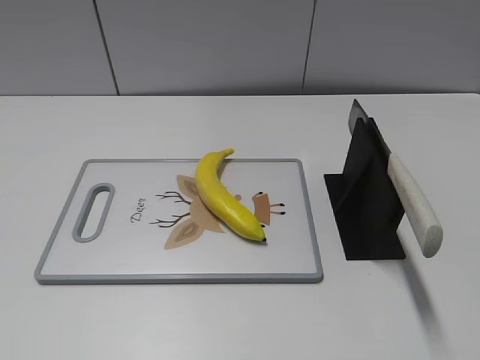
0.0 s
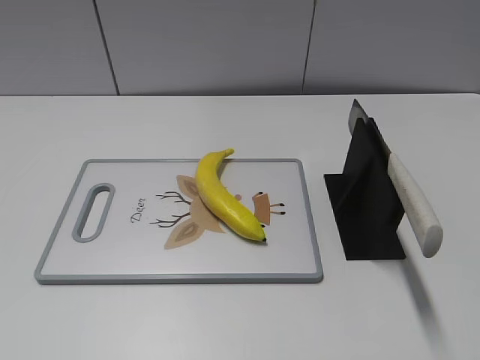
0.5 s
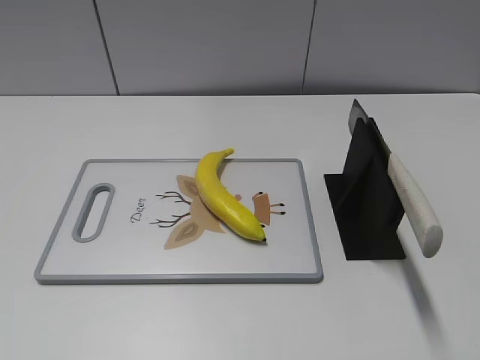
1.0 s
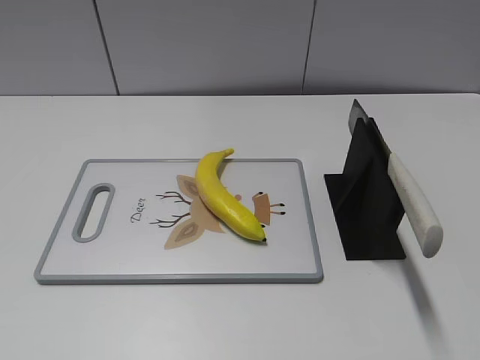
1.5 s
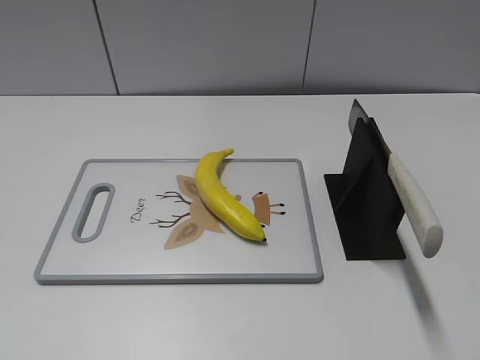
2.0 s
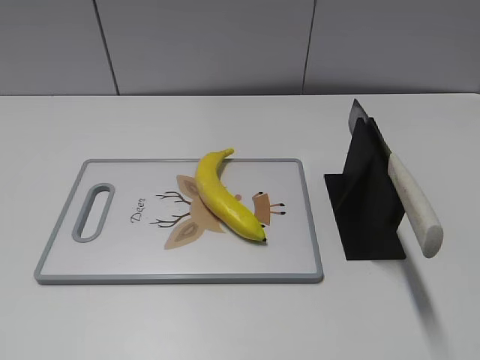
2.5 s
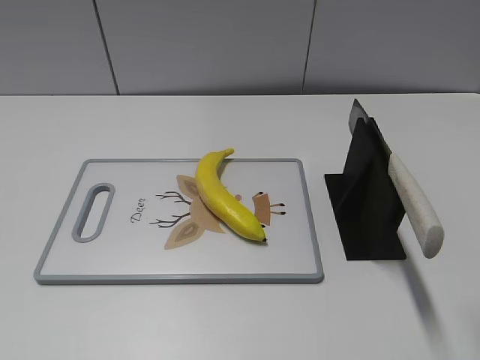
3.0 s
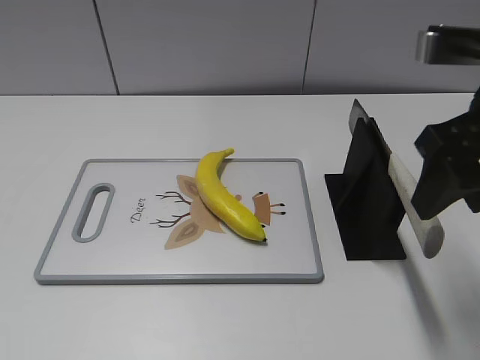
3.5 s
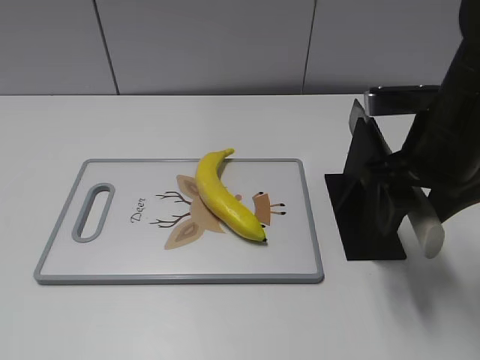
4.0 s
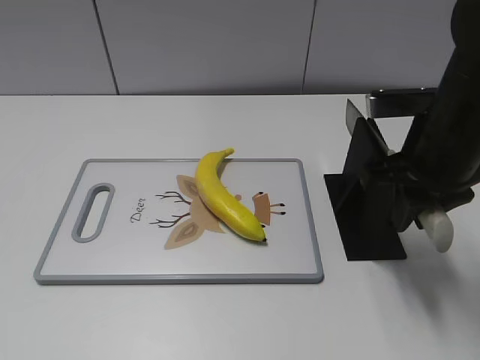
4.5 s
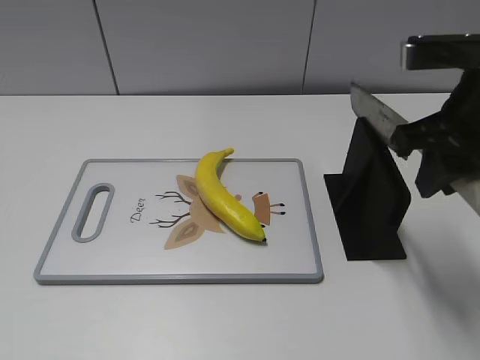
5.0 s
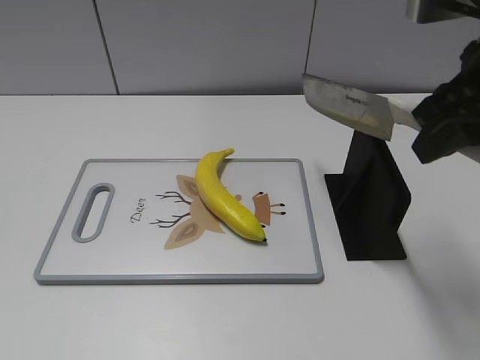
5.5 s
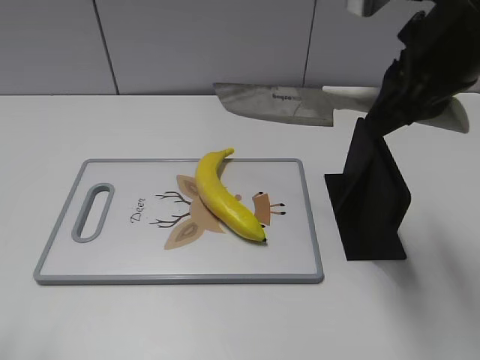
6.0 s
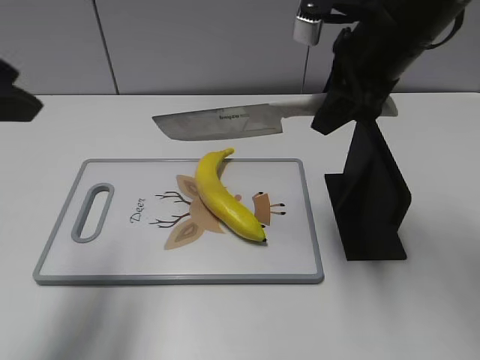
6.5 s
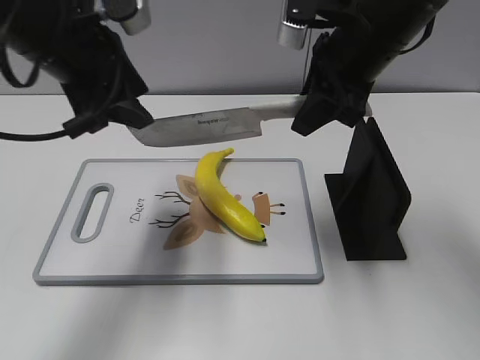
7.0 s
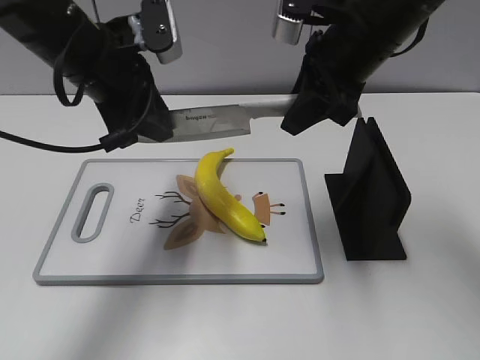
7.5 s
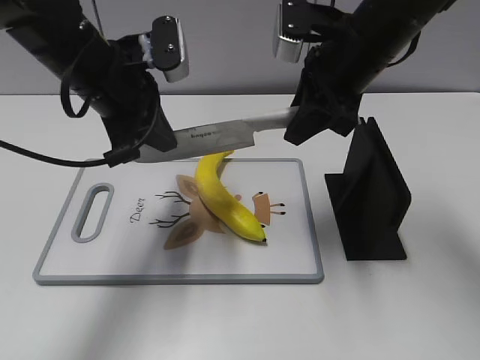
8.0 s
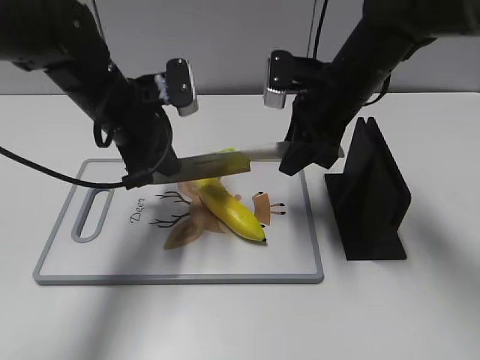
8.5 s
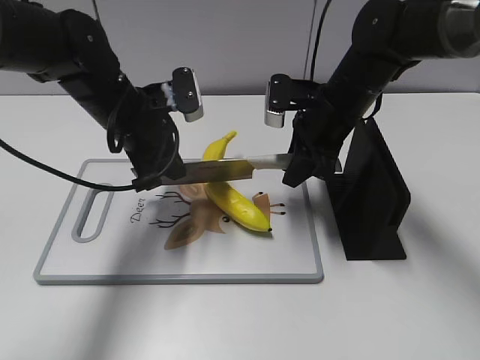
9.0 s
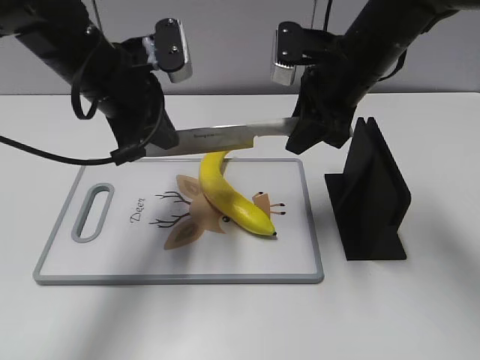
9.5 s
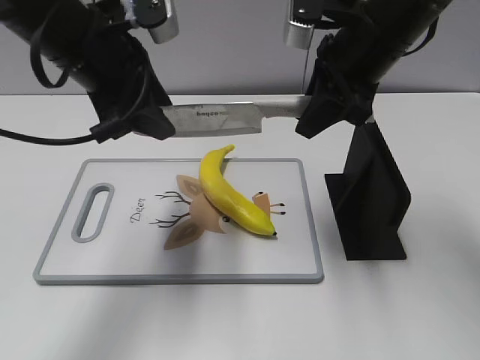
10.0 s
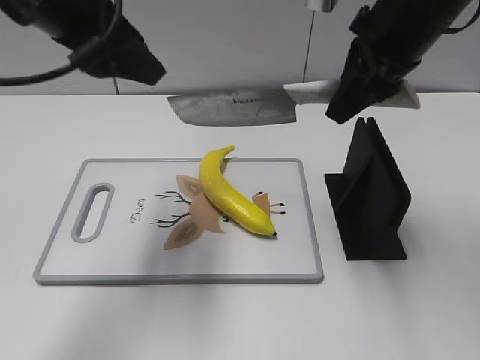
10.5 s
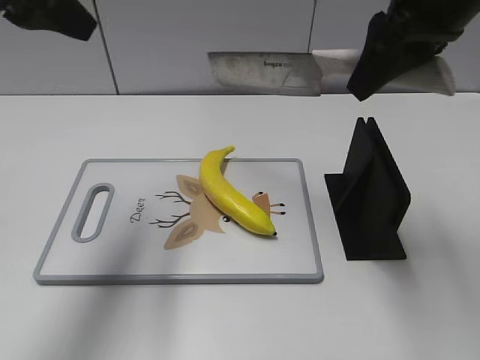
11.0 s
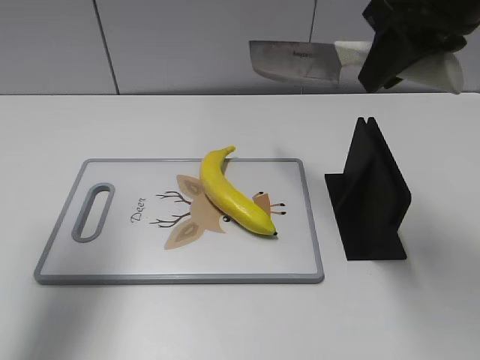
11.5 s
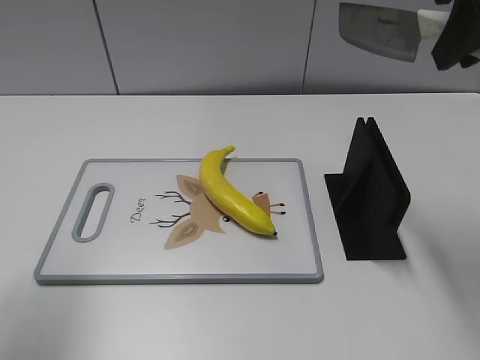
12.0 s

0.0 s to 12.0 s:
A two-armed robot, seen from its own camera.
Task of the whole recording: cut plastic banana.
Step, 0.0 to 5.5 s: Grab the knife handle with your right hand.
Step, 6.0 to 9.0 s: Lift the knife with your right hand.
Step, 10.0 to 10.5 s: Cut the banana with your right hand.
2.0 to 4.0 s: The right gripper heads forward, covering roughly 25 cm.
4.0 to 6.0 s: The right gripper goes some 10 cm upward, and closes its fingers. The left gripper moves forward, some 10 cm.
6.0 to 8.0 s: The right gripper moves forward and downward, some 10 cm. Meanwhile the left gripper moves forward and to the right, about 30 cm, and closes its fingers.
8.0 to 10.0 s: The left gripper opens up. Meanwhile the right gripper reaches roughly 10 cm downward, then returns.
10.0 to 12.0 s: The right gripper shifts roughly 15 cm upward, backward and to the right, while the left gripper goes roughly 20 cm to the left, backward and upward.

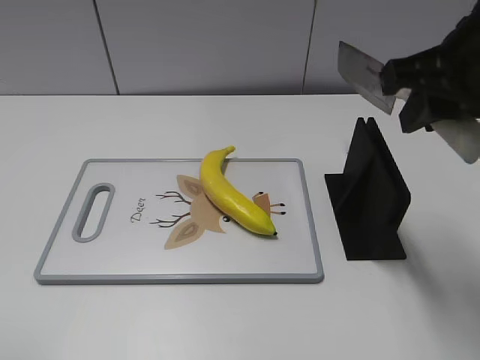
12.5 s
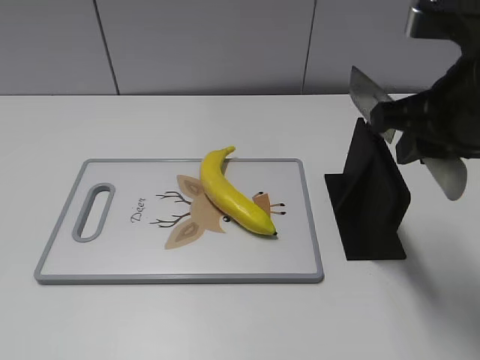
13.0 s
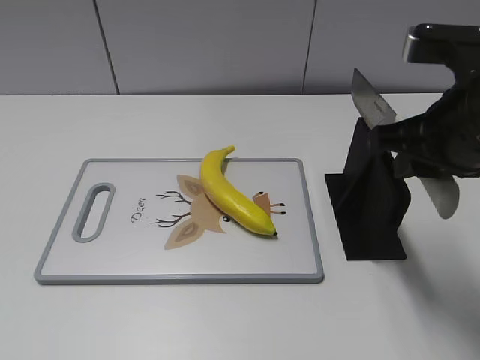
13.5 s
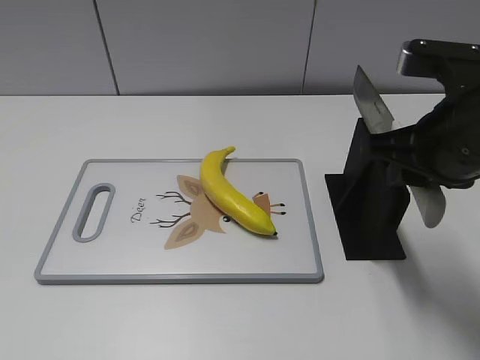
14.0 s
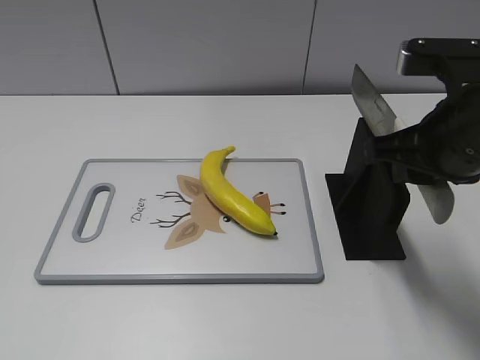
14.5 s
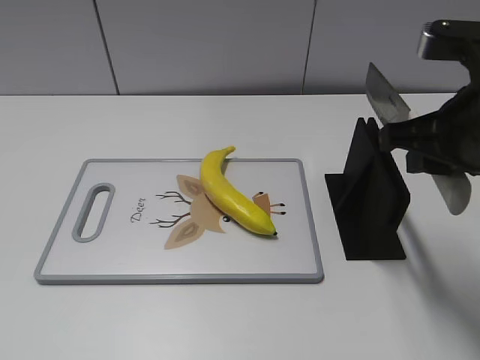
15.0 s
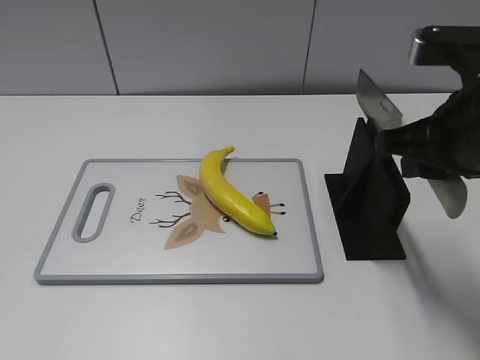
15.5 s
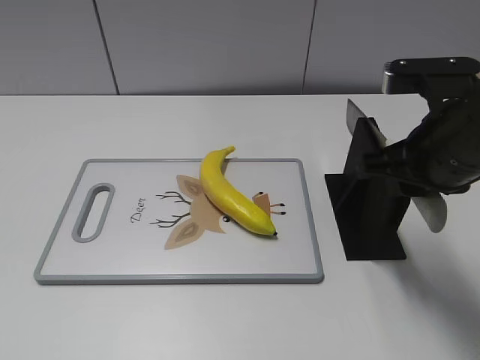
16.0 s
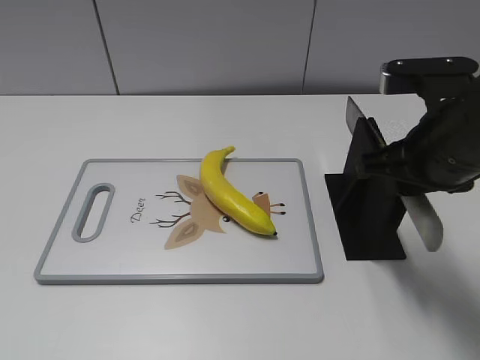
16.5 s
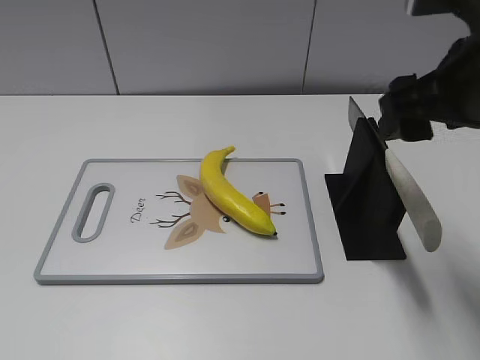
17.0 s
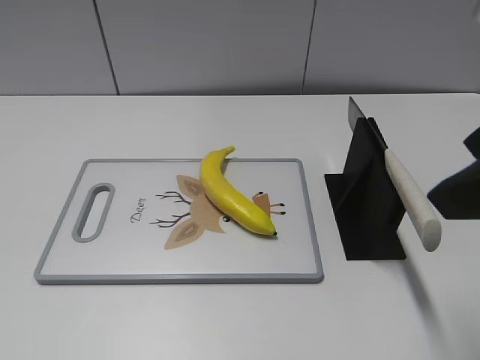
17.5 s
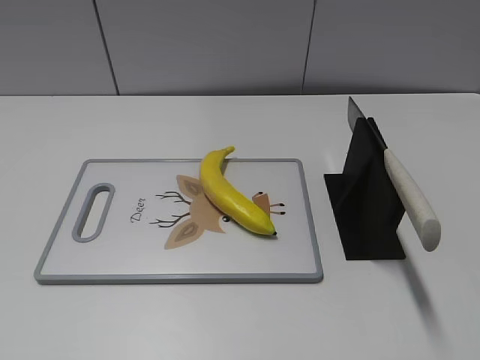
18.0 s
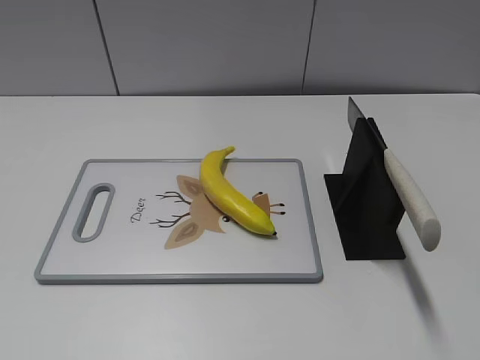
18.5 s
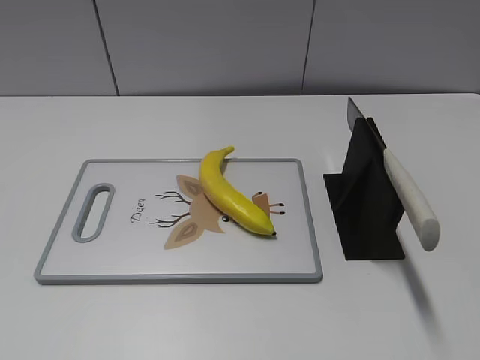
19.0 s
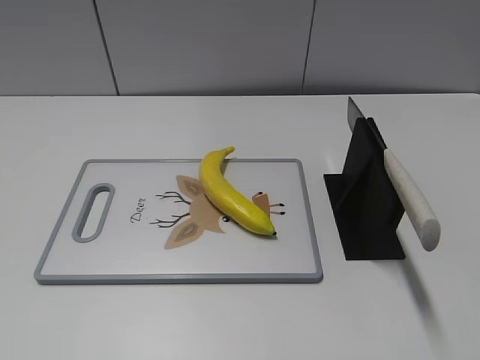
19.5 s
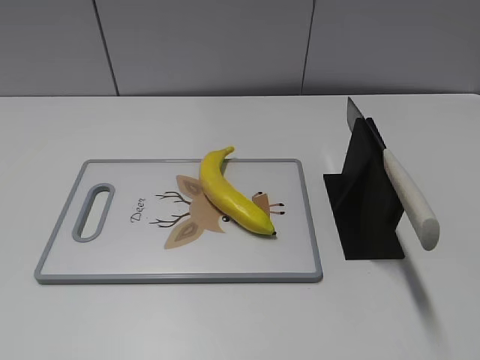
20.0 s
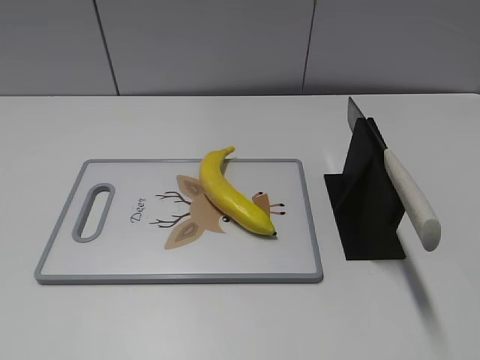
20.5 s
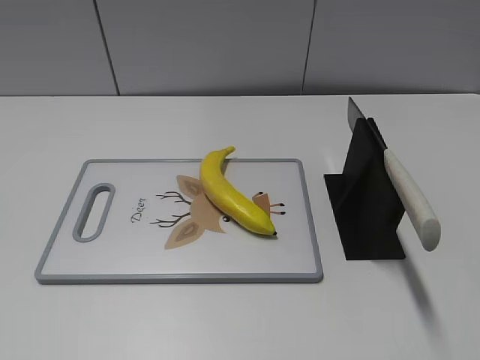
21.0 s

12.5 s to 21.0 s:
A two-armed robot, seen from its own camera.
Task of the whole recording: cut plastic banana.
Step, 12.5 to 20.5 s: Place the knife on the storage rack with your right hand.
12.5 to 14.5 s: The right gripper moves downward, approximately 5 cm.
14.5 to 16.5 s: The grippers make only small movements.
16.5 to 19.0 s: The right gripper is displaced backward and to the right by roughly 30 cm, and opens.

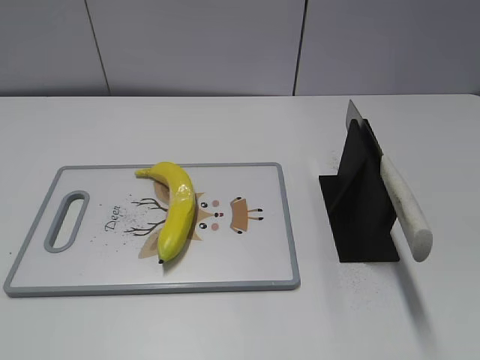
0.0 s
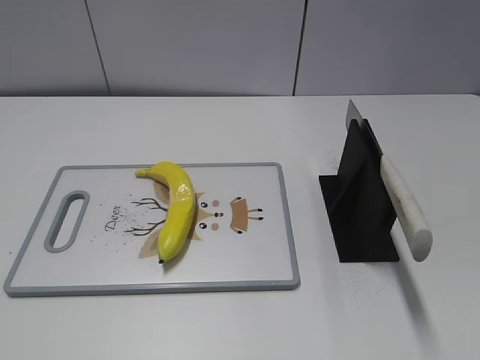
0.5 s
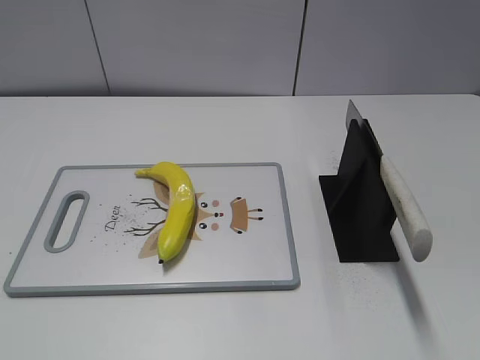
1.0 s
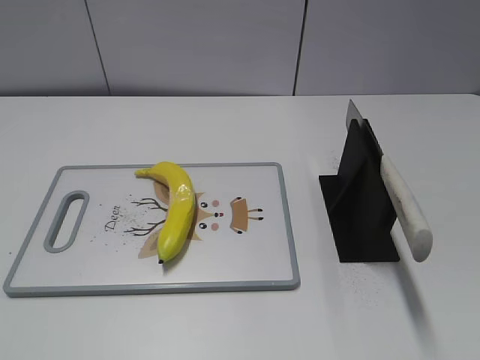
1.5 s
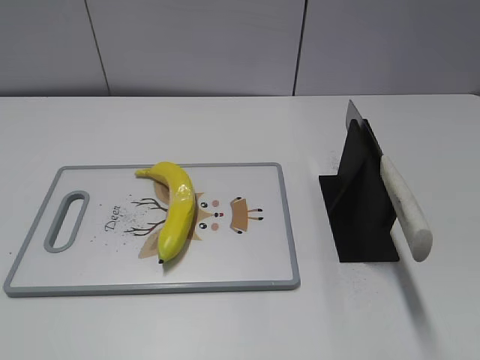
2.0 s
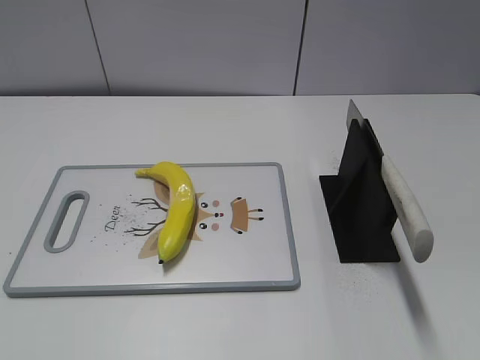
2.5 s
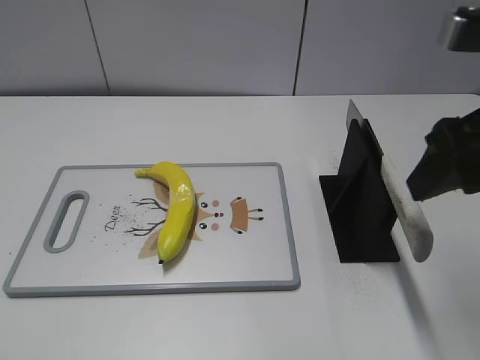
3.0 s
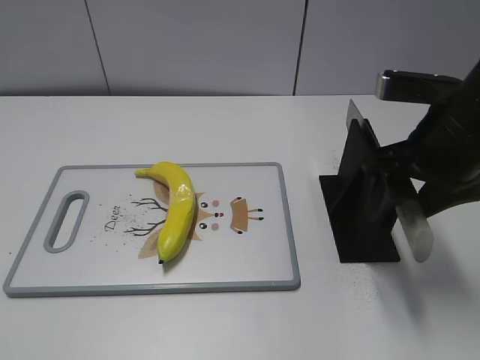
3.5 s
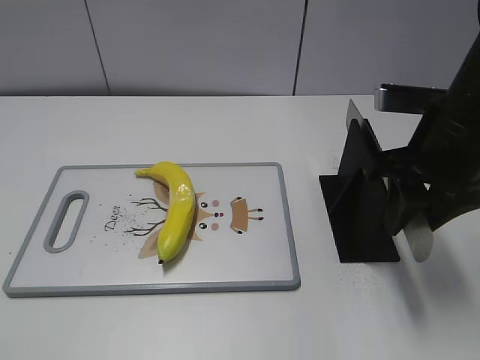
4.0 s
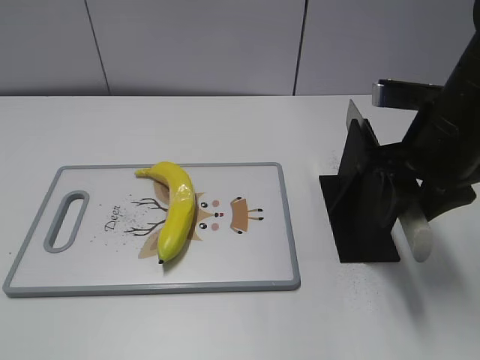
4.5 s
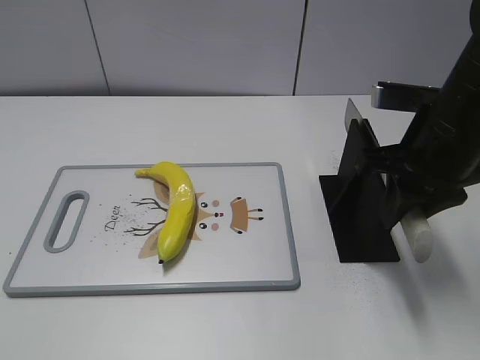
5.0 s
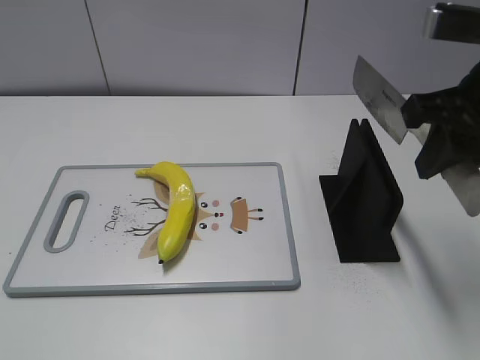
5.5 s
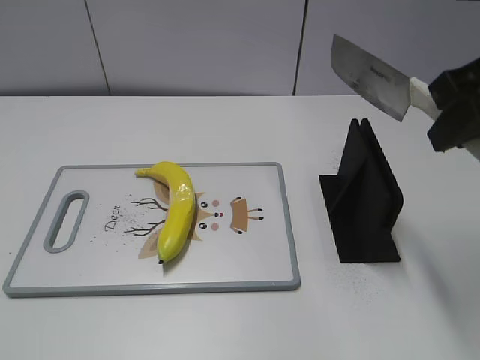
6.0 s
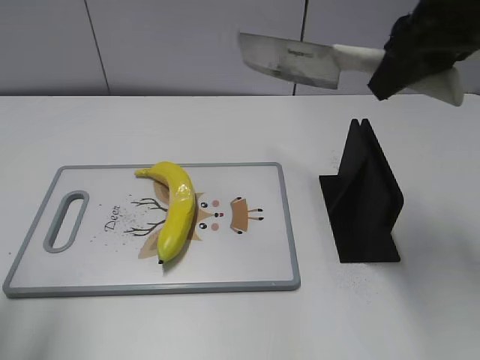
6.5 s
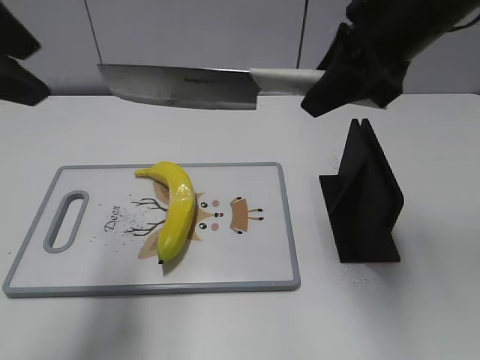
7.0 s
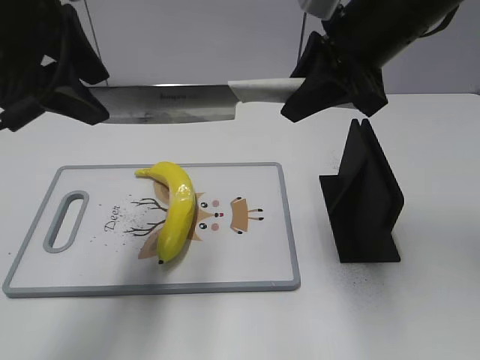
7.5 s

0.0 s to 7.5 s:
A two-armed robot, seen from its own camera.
Task of the whole recording: cut plastic banana.
Step, 0.0 to 6.0 s: Grab the knife handle with your right hand.
2.0 to 4.0 s: The right gripper shifts some 25 cm forward, downward and to the left, and closes up.
4.0 to 5.5 s: The right gripper heads upward, covering about 5 cm.
5.5 to 7.5 s: The left gripper goes some 30 cm forward and to the right; the right gripper travels forward and to the left by about 10 cm.
